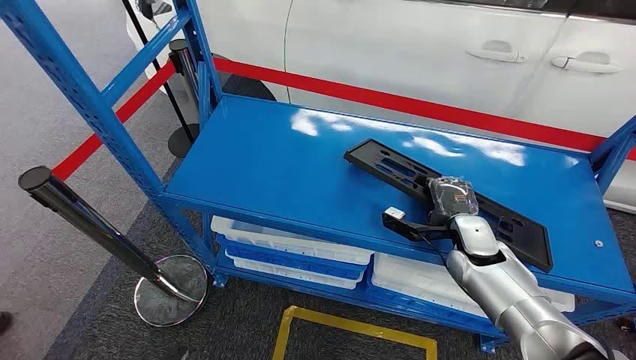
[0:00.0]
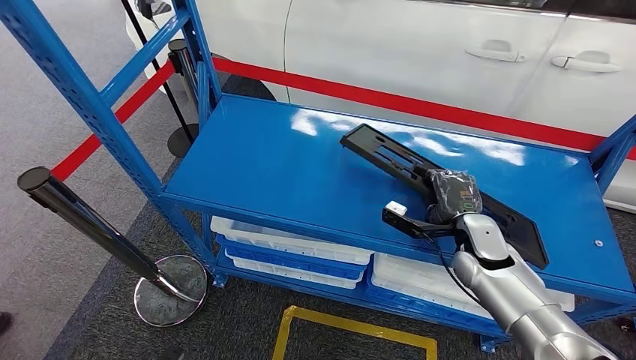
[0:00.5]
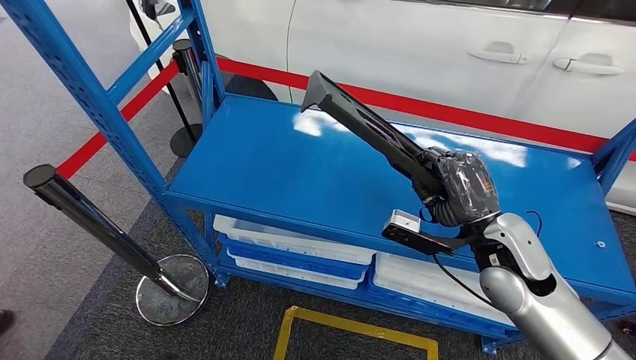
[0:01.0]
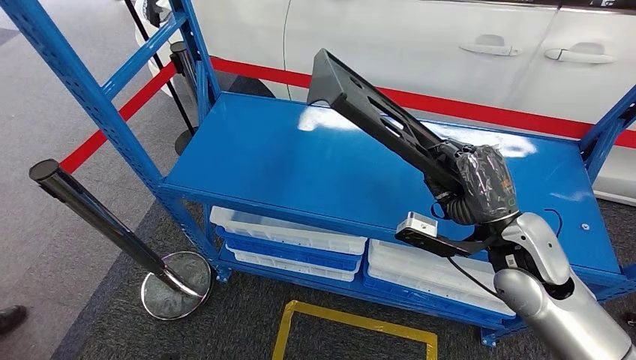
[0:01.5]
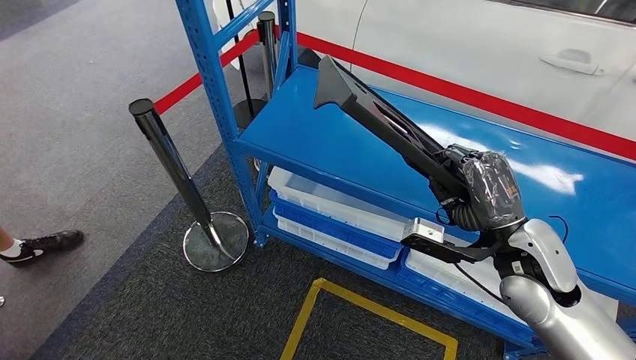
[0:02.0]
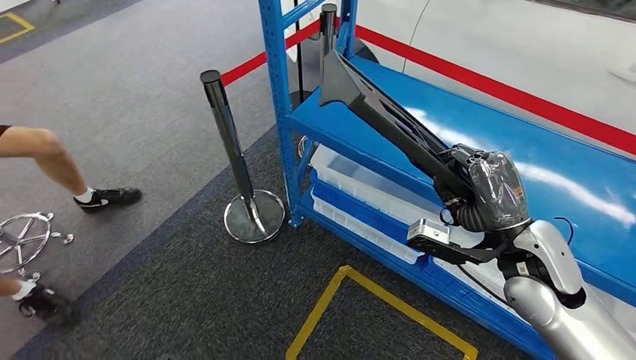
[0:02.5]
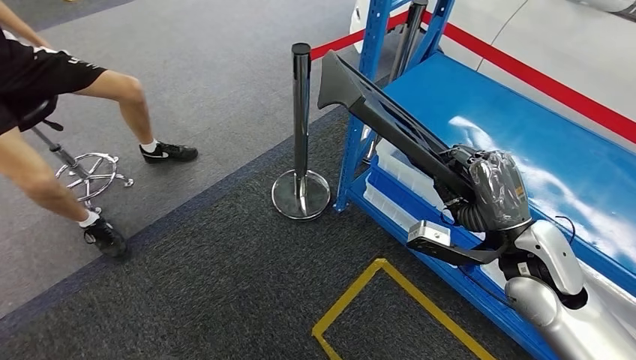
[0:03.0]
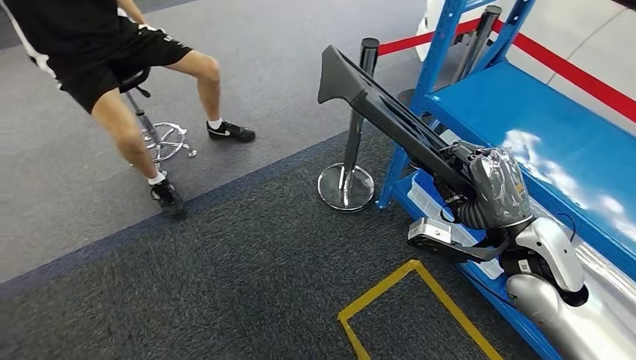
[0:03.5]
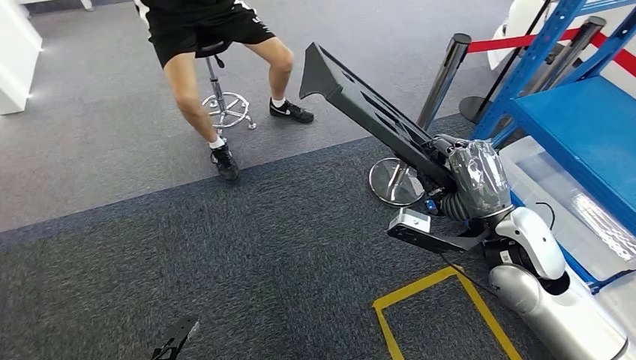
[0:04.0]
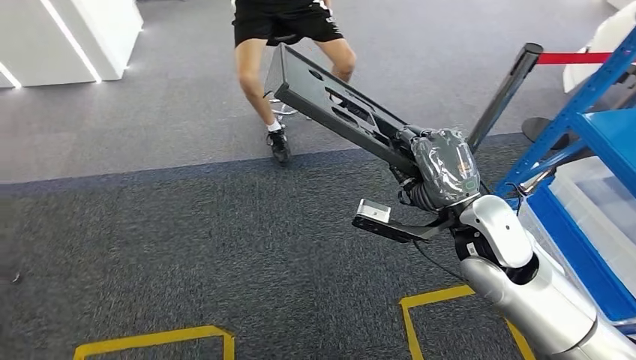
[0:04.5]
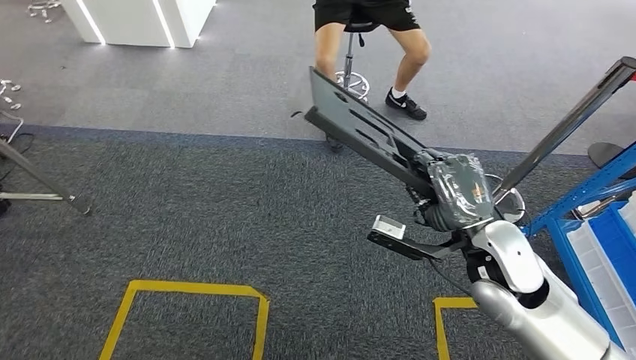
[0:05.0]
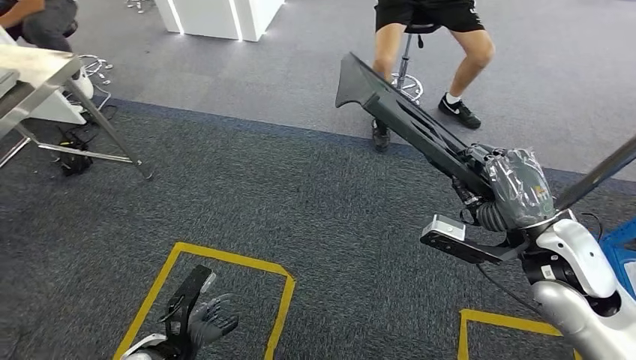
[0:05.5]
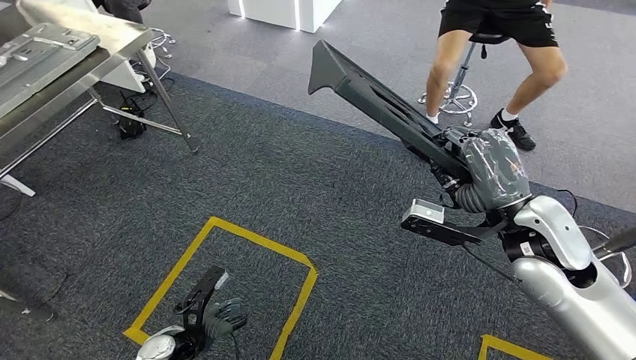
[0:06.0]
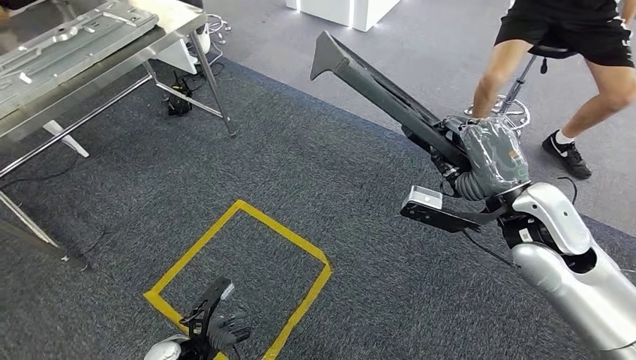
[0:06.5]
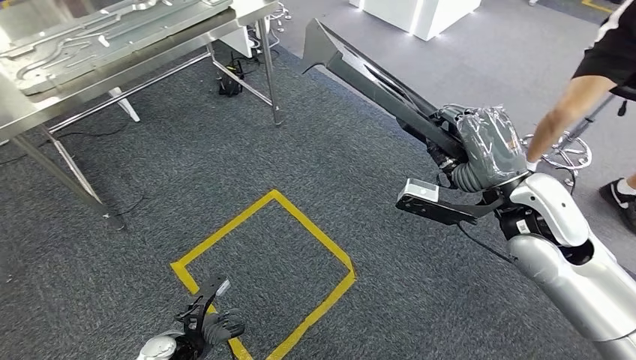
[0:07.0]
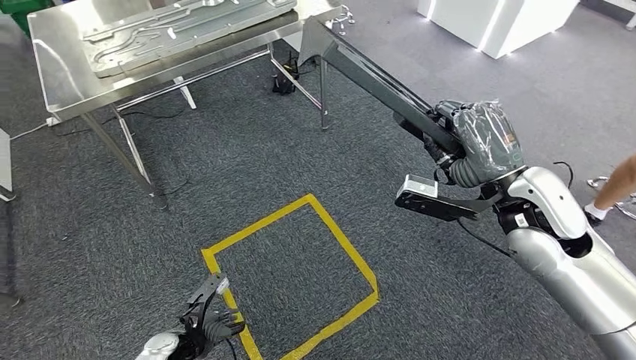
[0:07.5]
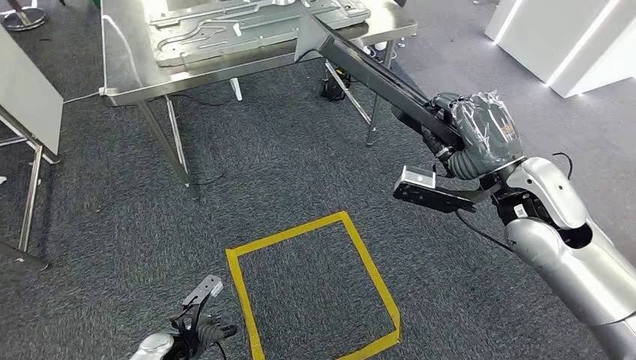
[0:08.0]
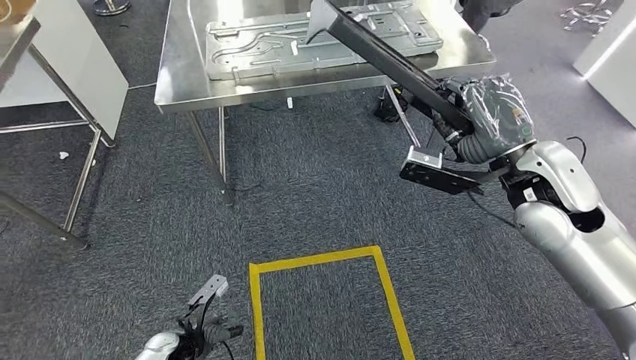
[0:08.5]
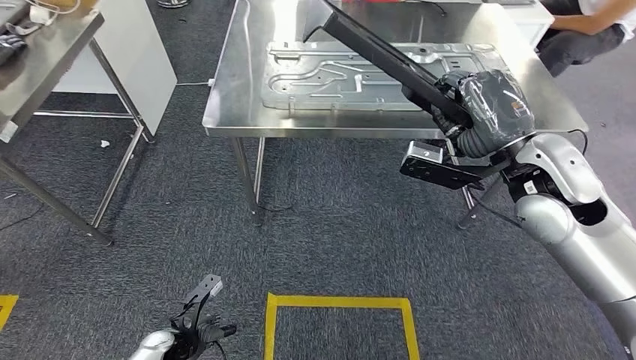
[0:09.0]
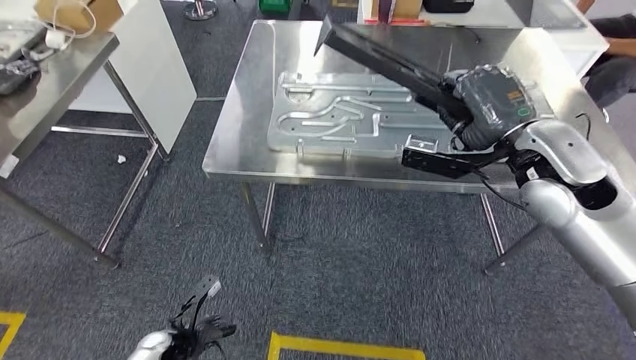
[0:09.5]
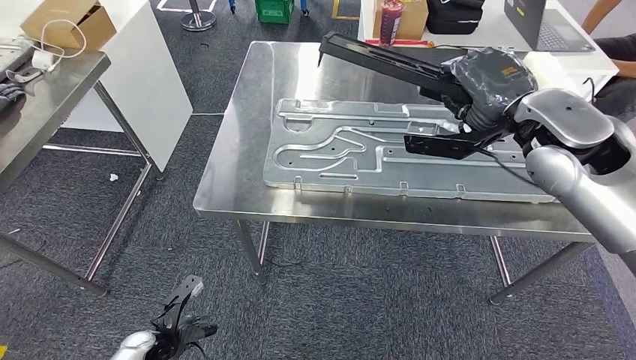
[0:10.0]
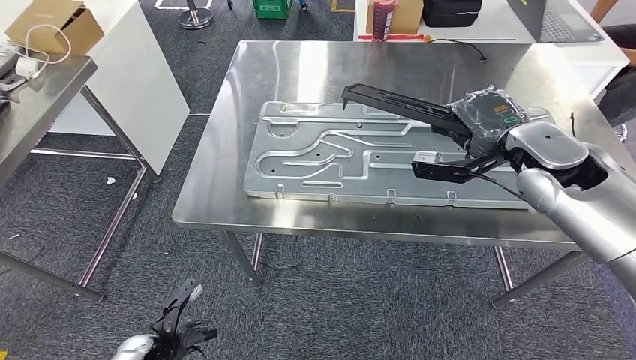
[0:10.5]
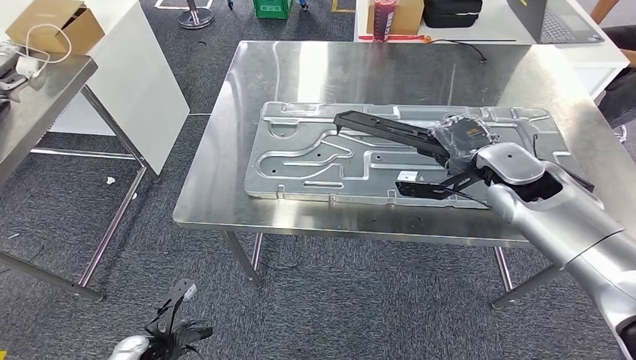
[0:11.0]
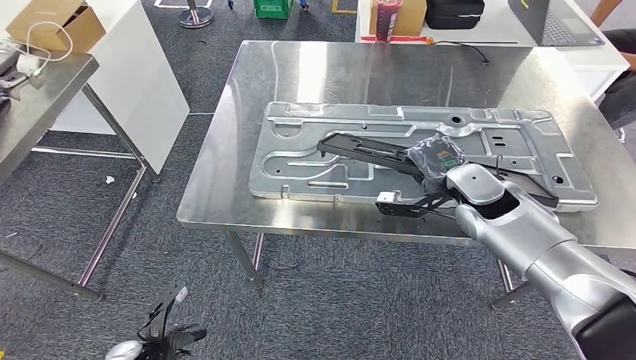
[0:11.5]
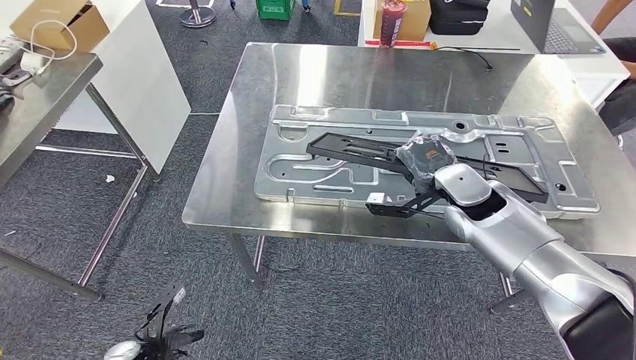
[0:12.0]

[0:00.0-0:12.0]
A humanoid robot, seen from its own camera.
Step, 0:00.0 to 0:03.5: Pick up the large material from the shelf.
Step, 0:05.0 to 0:12.0: Move the large material to the workbench.

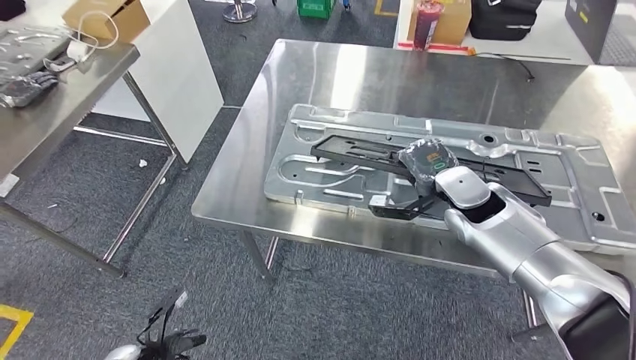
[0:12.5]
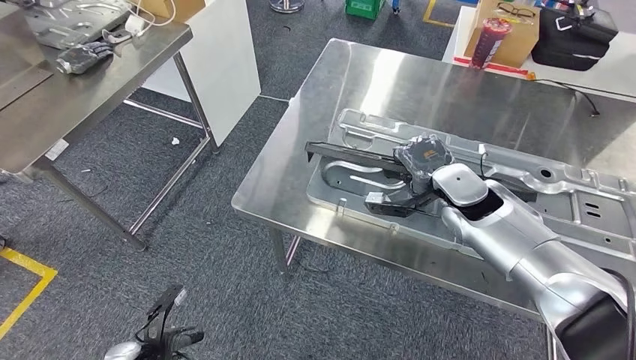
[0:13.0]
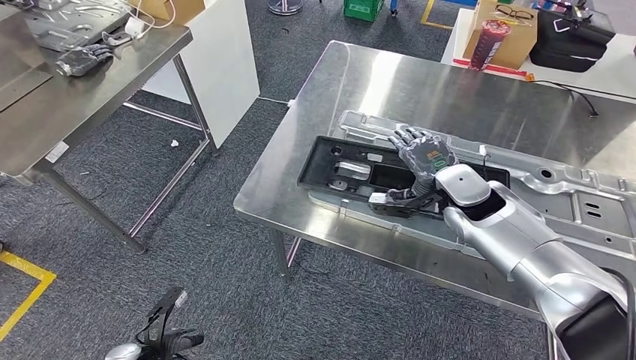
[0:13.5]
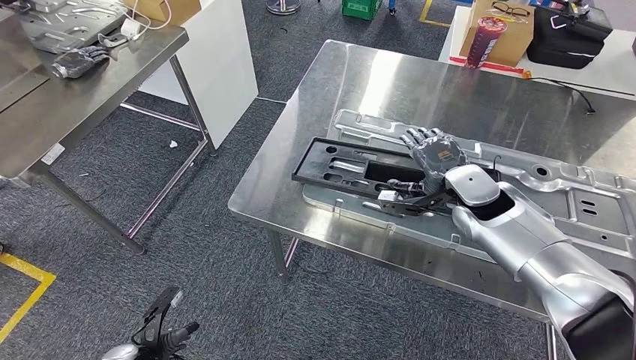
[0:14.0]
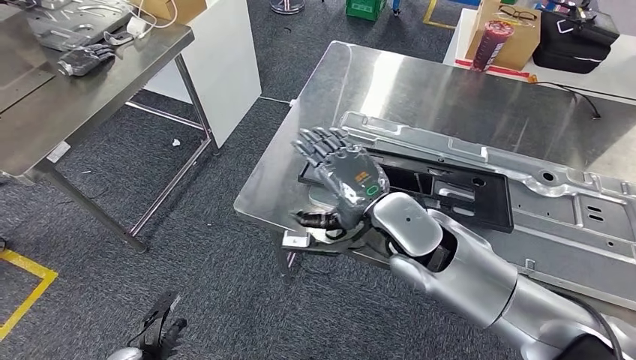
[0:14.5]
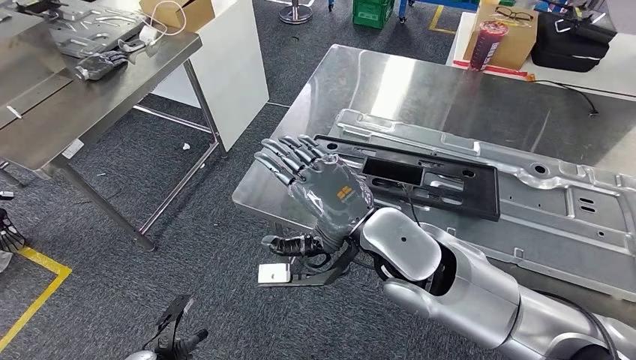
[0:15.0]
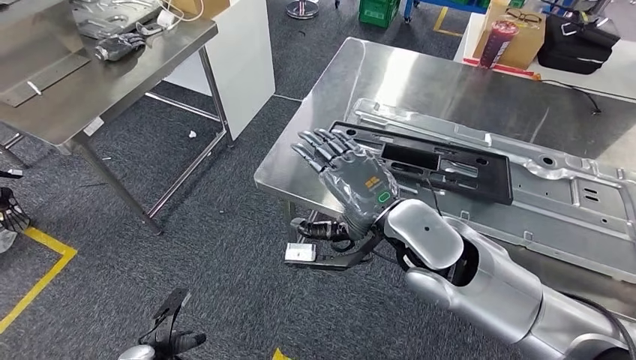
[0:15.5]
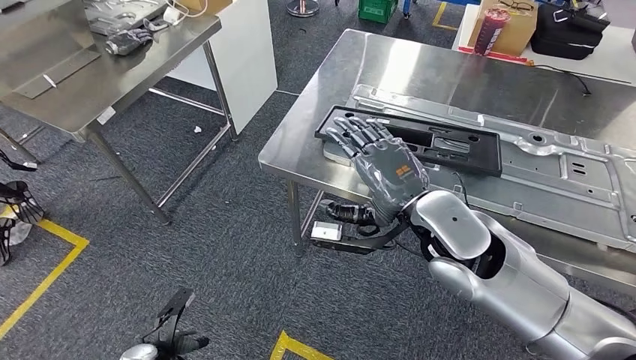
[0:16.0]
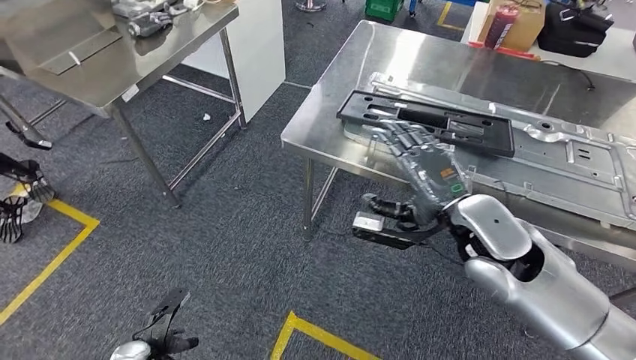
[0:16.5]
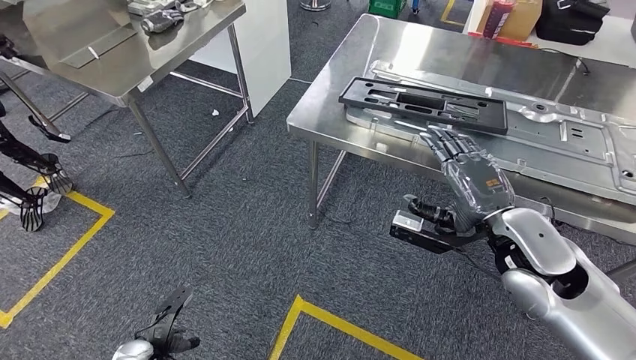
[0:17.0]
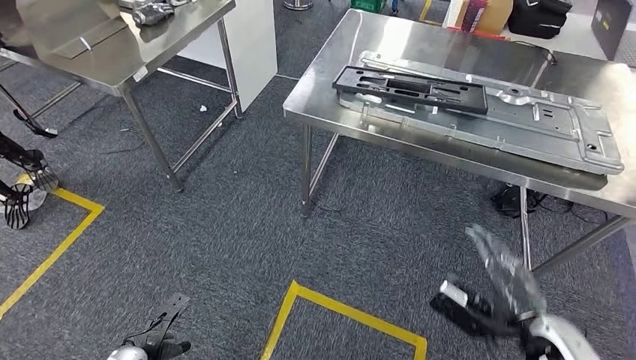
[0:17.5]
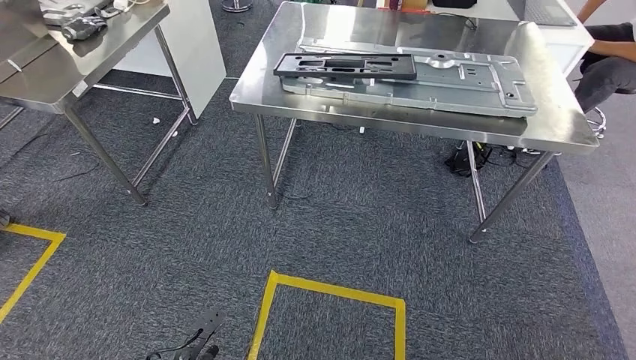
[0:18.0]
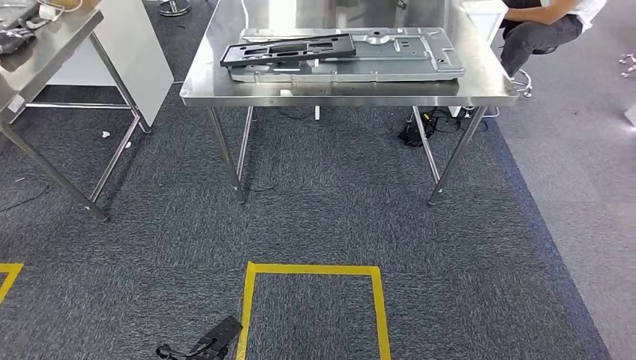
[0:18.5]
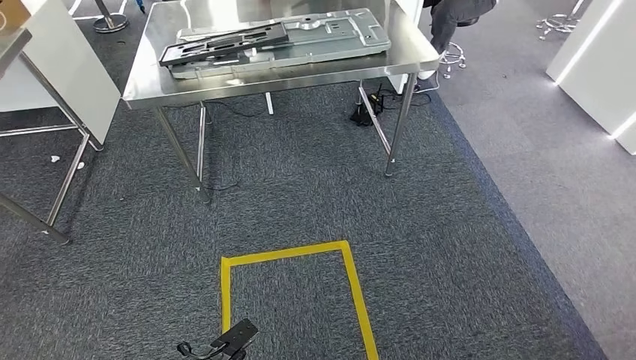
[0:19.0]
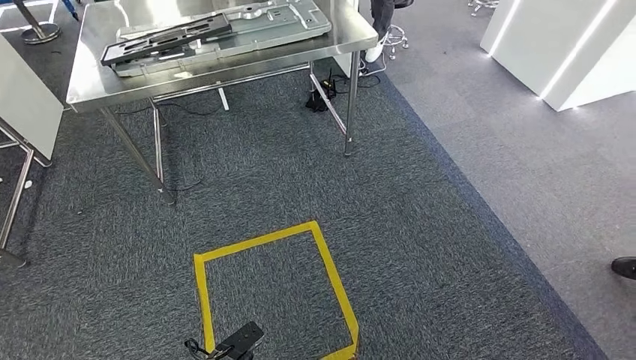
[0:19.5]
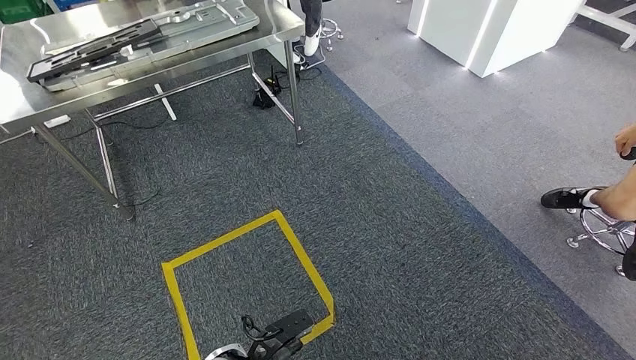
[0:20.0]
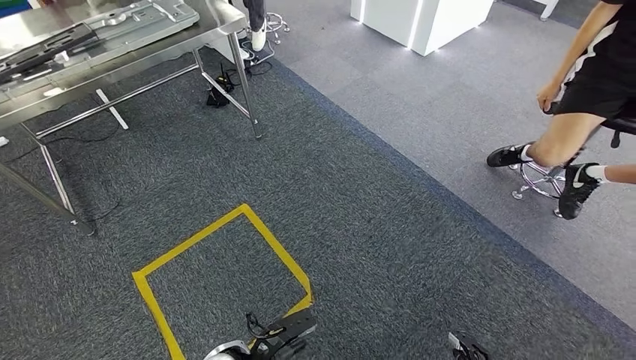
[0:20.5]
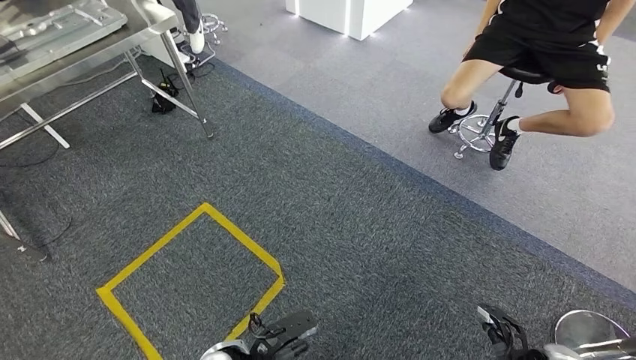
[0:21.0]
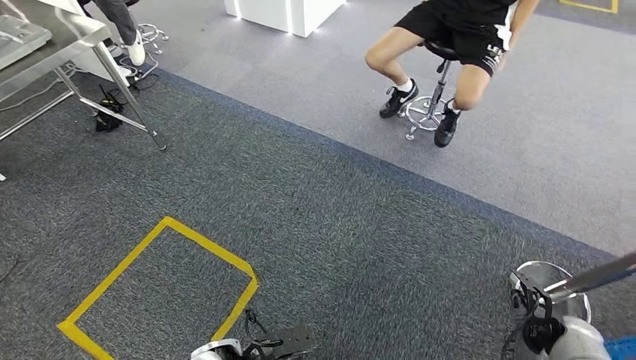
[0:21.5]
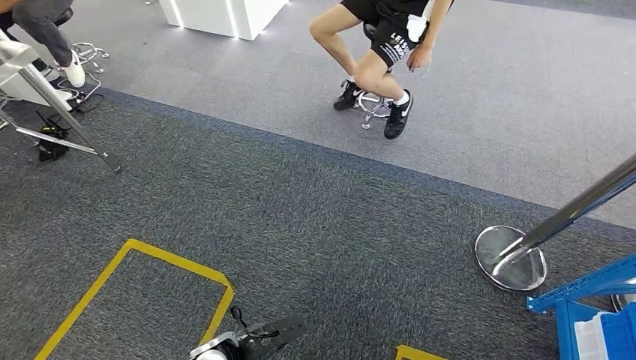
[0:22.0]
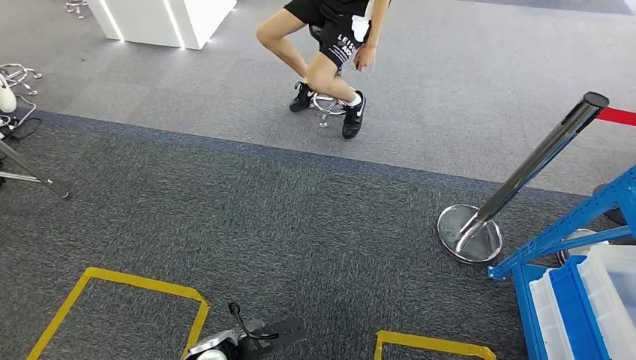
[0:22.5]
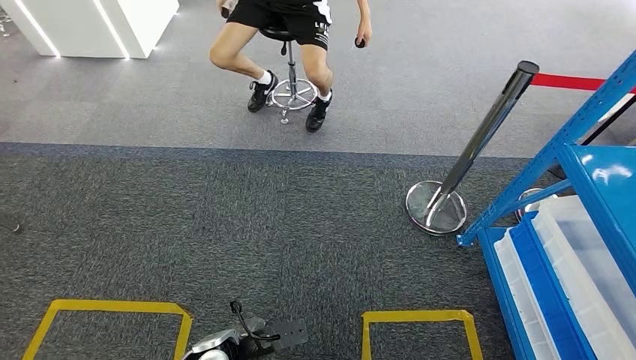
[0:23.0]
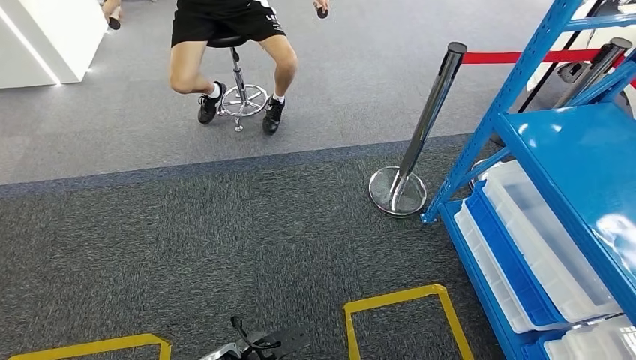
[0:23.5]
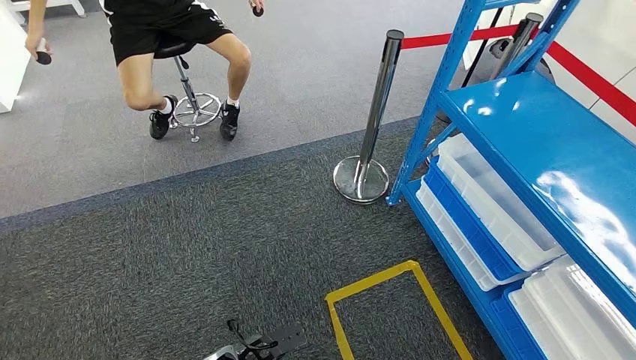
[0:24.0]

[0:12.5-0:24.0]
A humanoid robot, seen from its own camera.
Step, 0:12.5 to 0:14.5: Insert the large material into the corresponding slot on the workbench.
